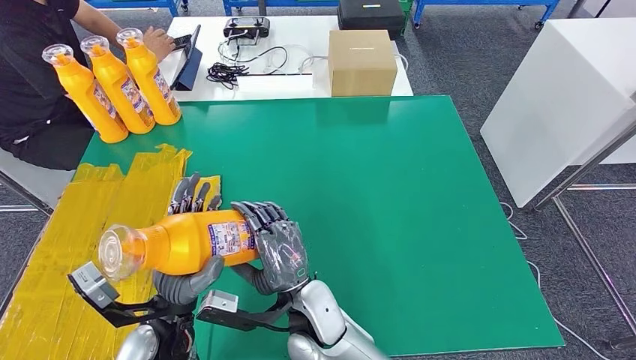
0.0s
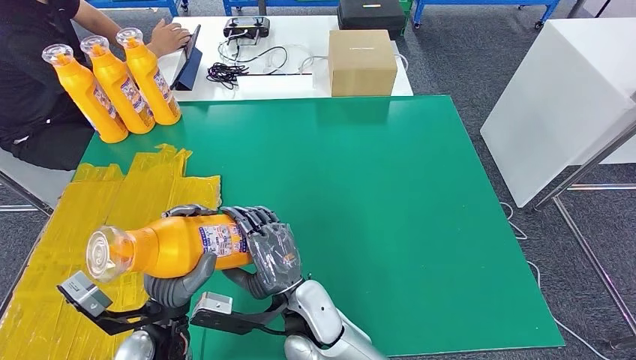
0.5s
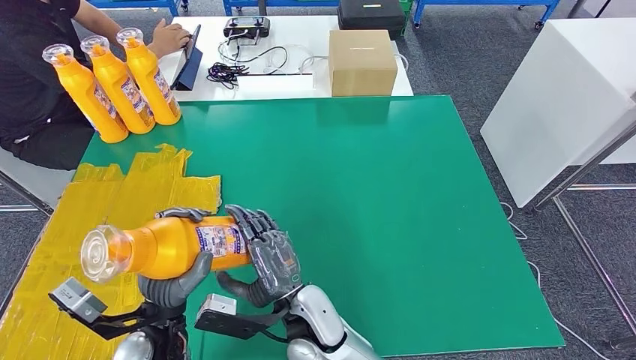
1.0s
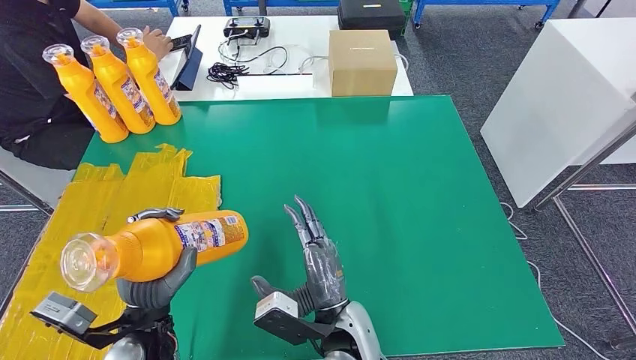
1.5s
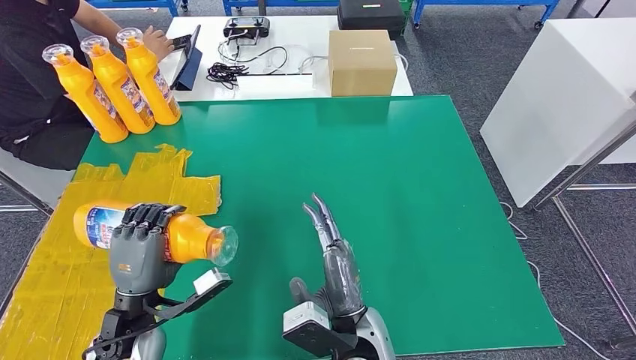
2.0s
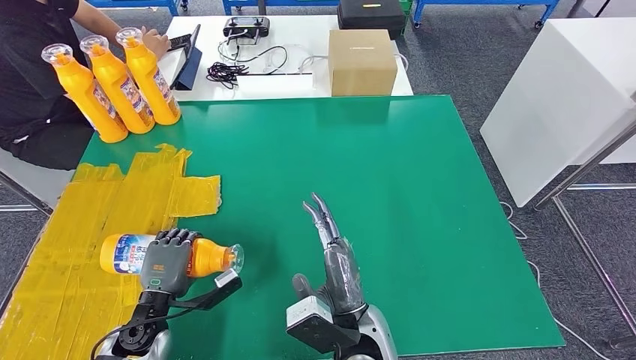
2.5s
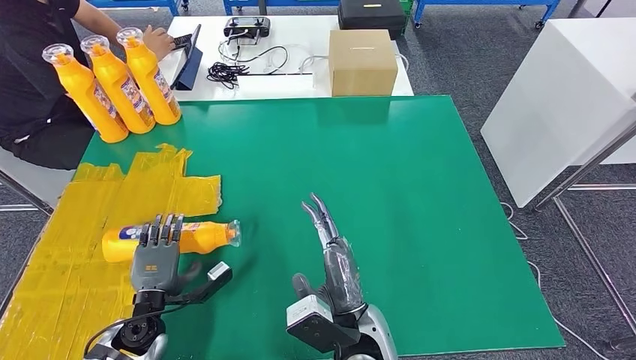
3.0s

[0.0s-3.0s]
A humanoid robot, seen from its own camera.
Step, 0.0s to 3.0s: Flip the bottle to face forward.
0.0s to 1.5s: The right hand heads to the right, covering roughly 5 cm.
1.5s to 3.0s: The left hand shifts roughly 10 cm downward and to the left.
